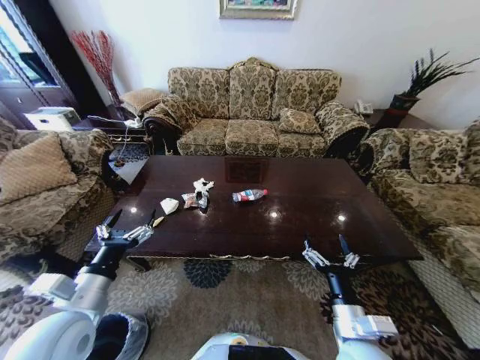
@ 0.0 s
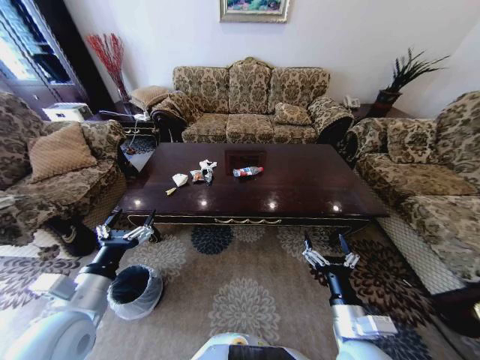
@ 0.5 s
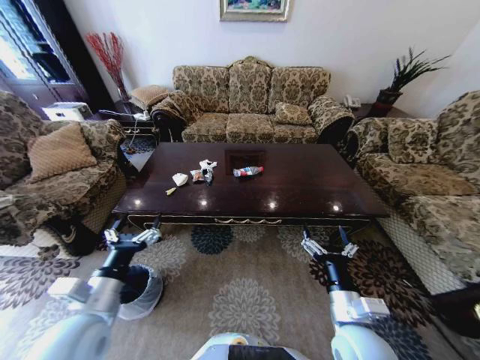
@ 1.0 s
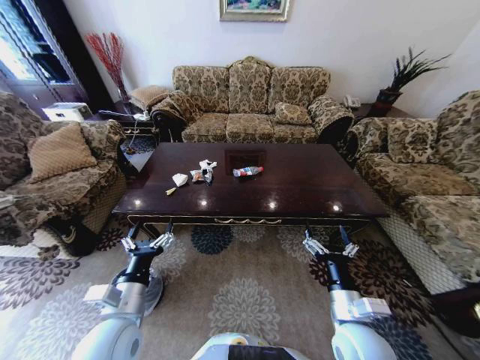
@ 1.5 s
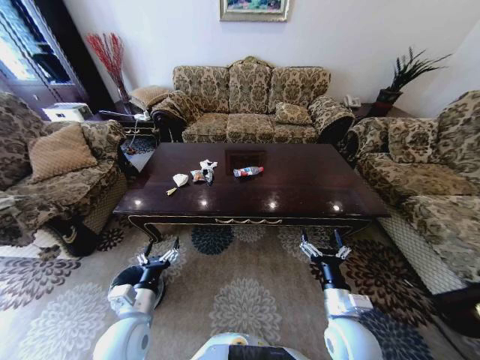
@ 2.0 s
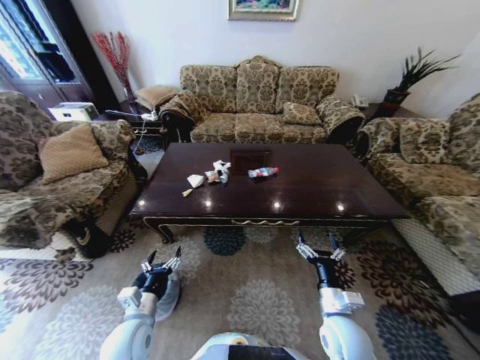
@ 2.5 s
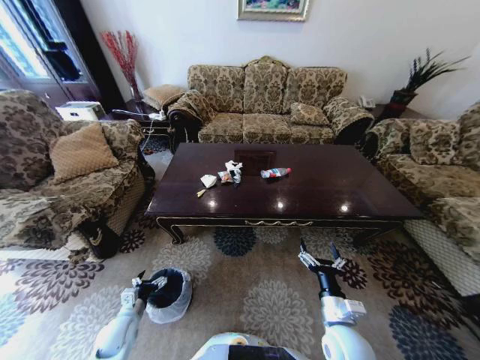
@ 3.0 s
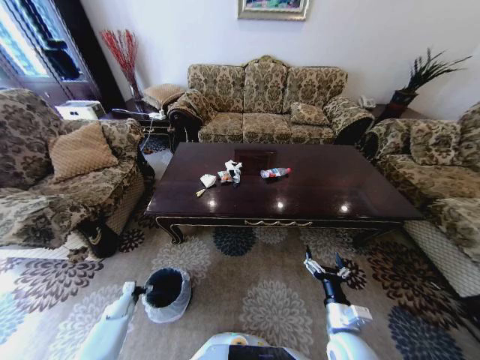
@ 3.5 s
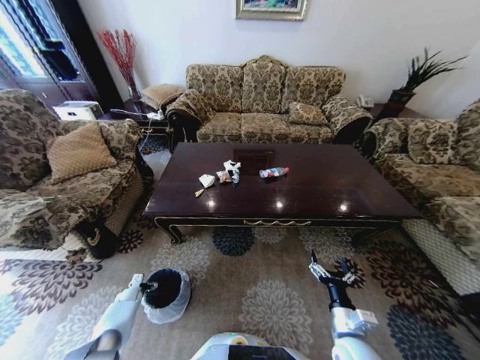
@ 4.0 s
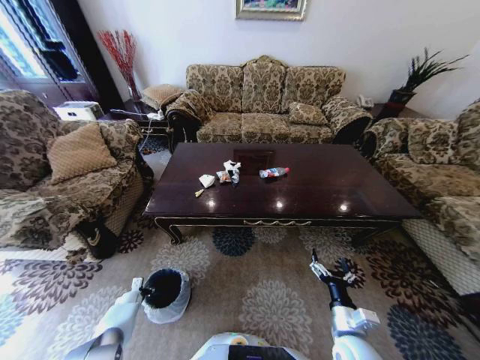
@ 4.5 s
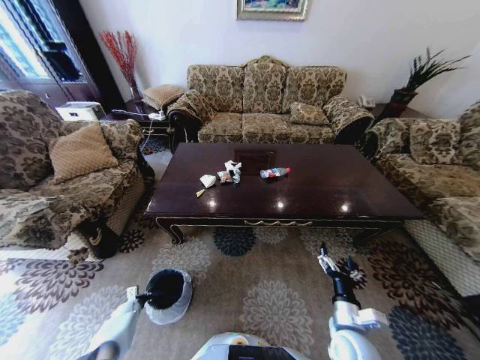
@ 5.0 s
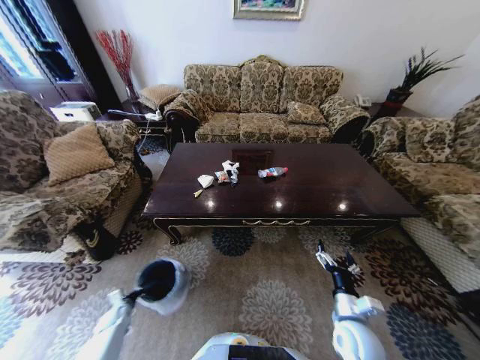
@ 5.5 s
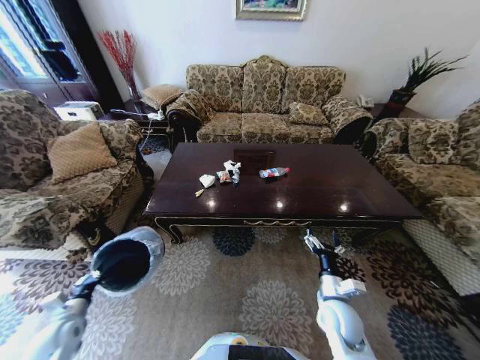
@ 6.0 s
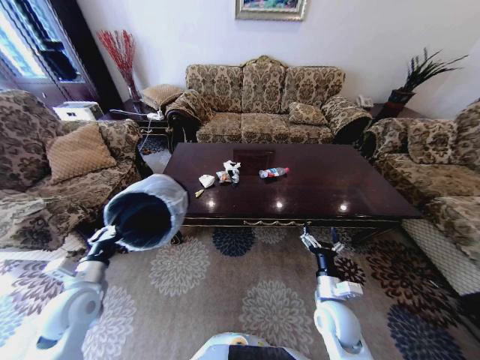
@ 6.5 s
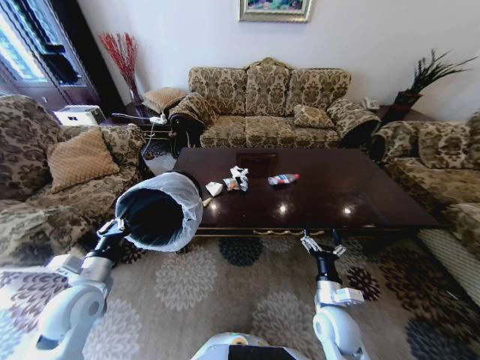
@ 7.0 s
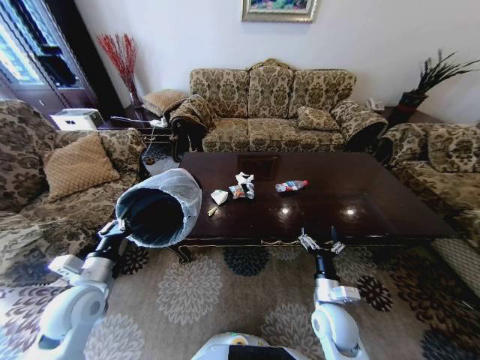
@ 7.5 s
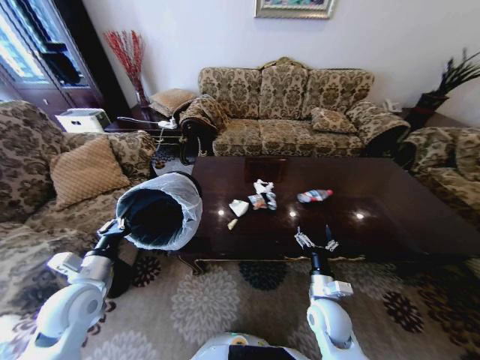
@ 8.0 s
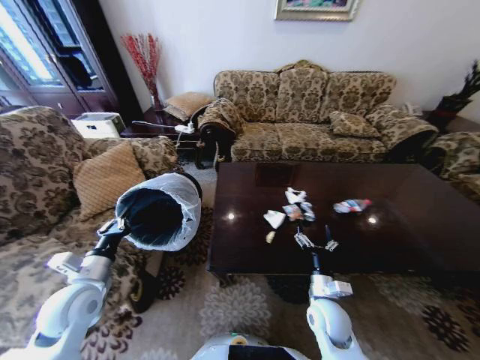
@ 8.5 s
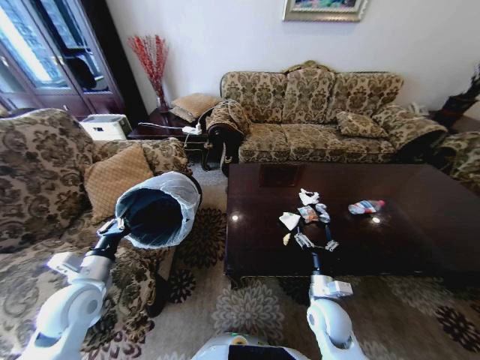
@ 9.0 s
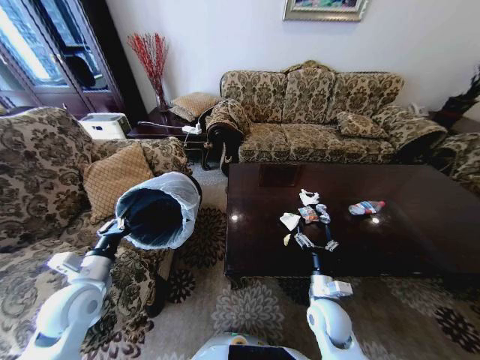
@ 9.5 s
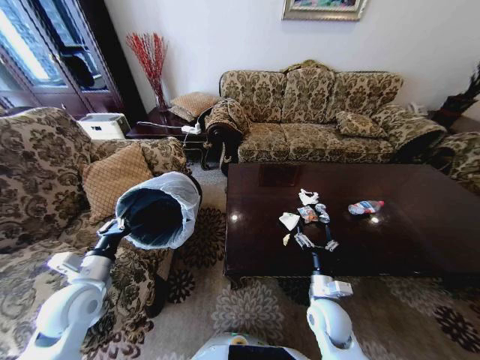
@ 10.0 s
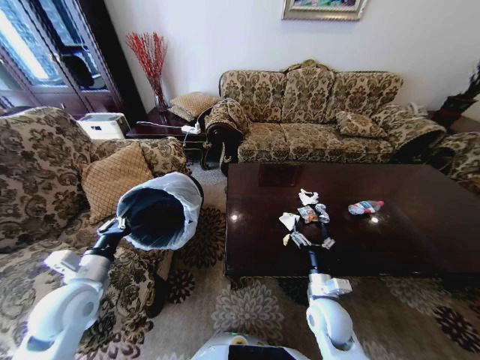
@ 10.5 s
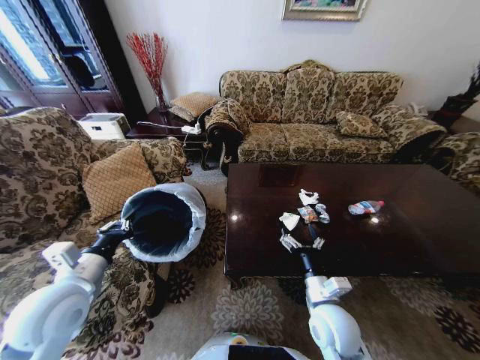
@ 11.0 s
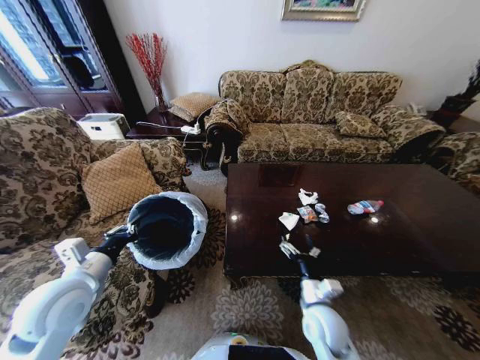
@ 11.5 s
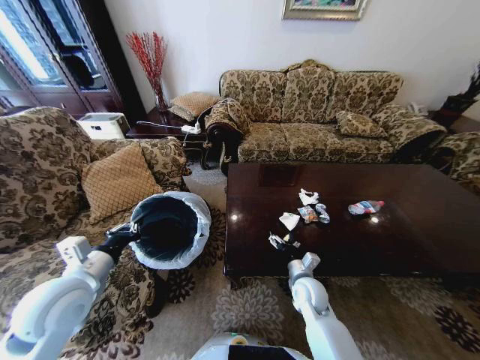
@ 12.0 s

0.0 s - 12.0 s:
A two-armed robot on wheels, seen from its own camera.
Task of the whole recording: Move to the front of the table and place the trash on the table into the trash bin.
2.0 s - 4.0 s: The right gripper is displaced downward by approximately 5 cm, while the left gripper travels downward, to the left and forward by roughly 40 cm.
4.0 s - 6.0 s: The left gripper shifts roughly 25 cm upward and backward, and closes up. The right gripper goes roughly 10 cm forward.
6.0 s - 8.0 s: The left gripper goes about 20 cm upward and to the right.
10.0 s - 12.0 s: The right gripper moves forward, about 5 cm. The left gripper is displaced upward by some 5 cm.

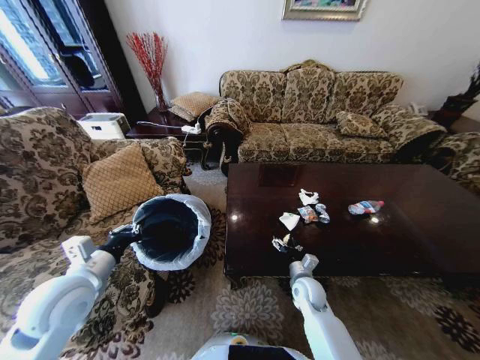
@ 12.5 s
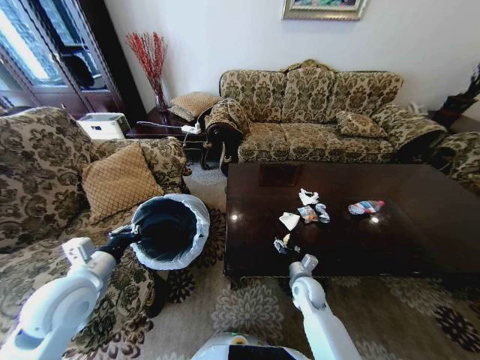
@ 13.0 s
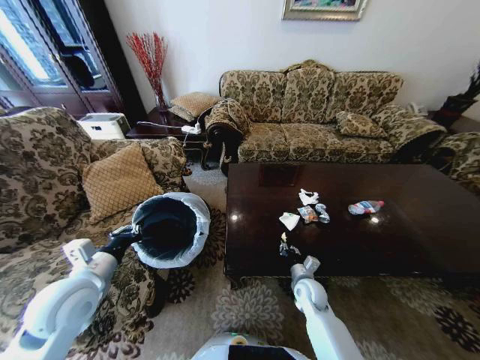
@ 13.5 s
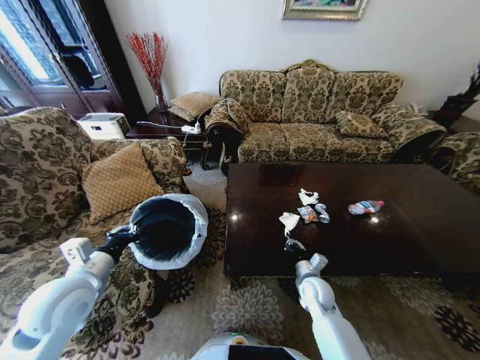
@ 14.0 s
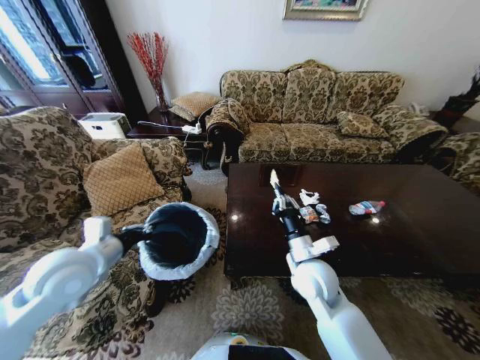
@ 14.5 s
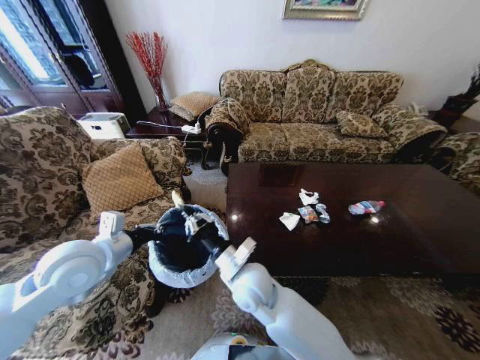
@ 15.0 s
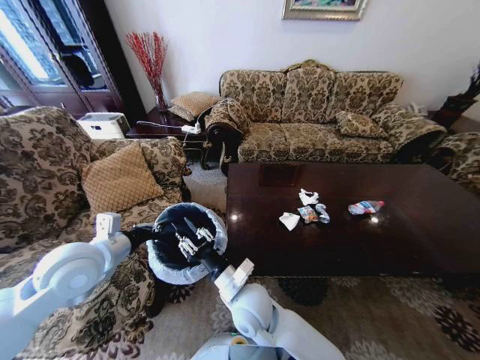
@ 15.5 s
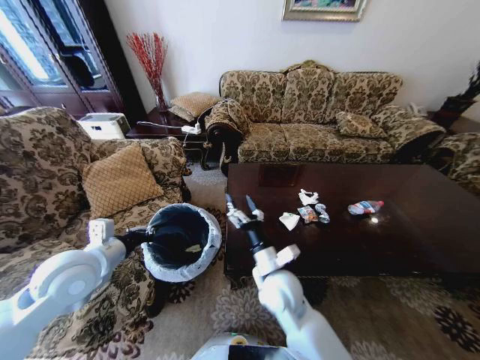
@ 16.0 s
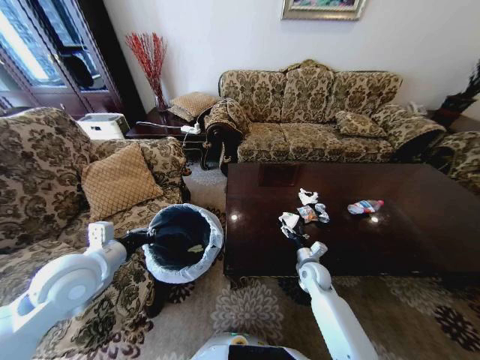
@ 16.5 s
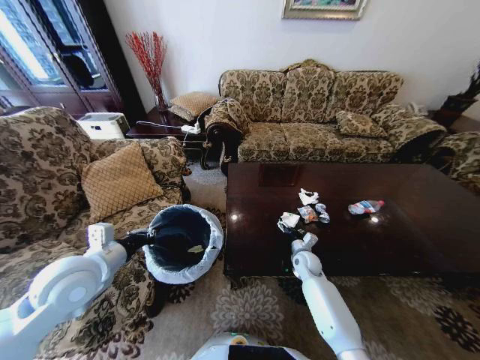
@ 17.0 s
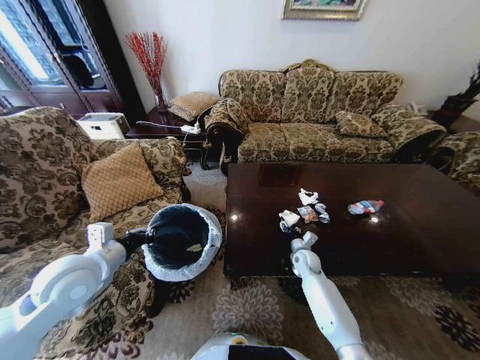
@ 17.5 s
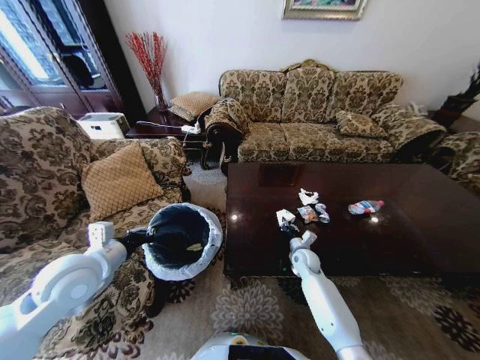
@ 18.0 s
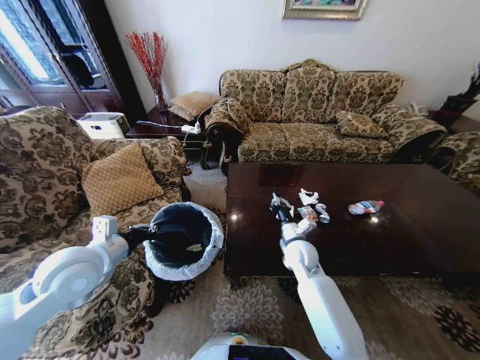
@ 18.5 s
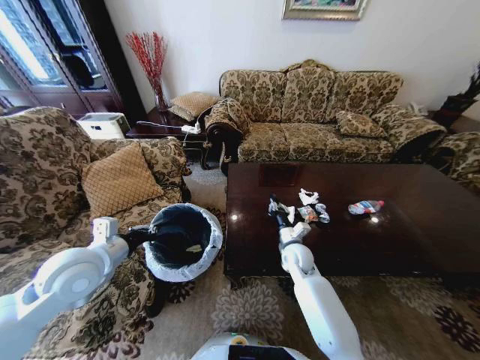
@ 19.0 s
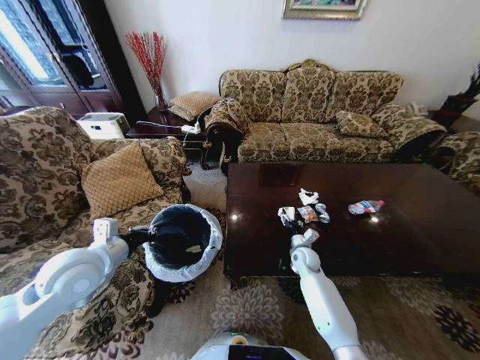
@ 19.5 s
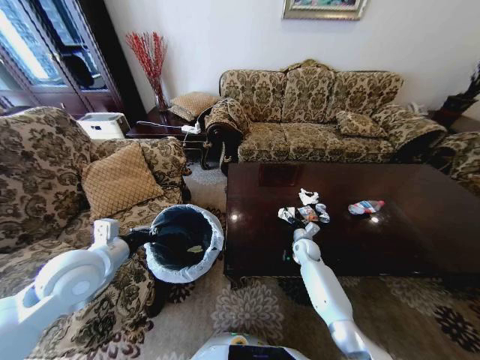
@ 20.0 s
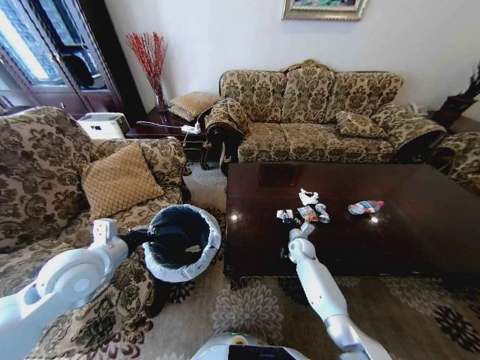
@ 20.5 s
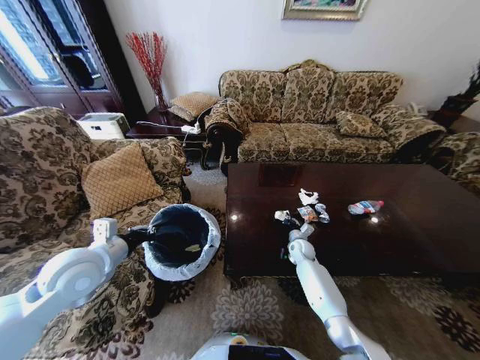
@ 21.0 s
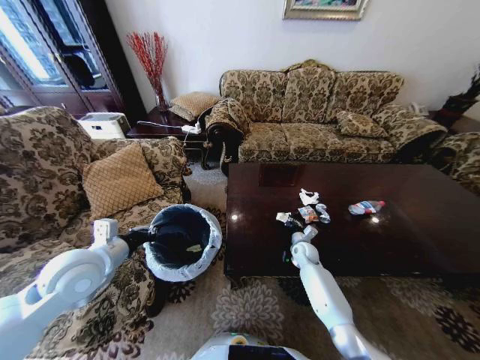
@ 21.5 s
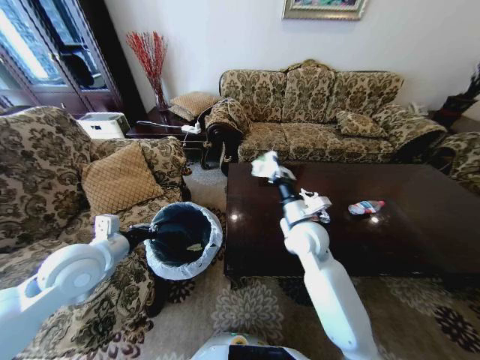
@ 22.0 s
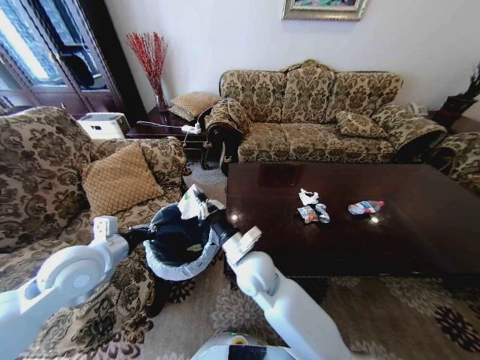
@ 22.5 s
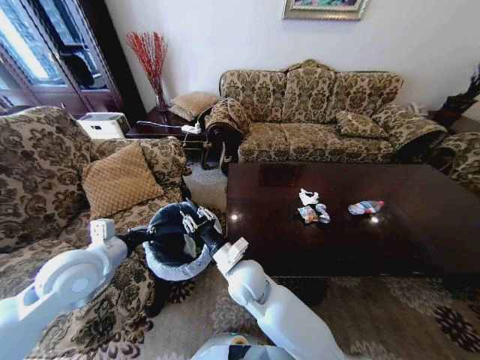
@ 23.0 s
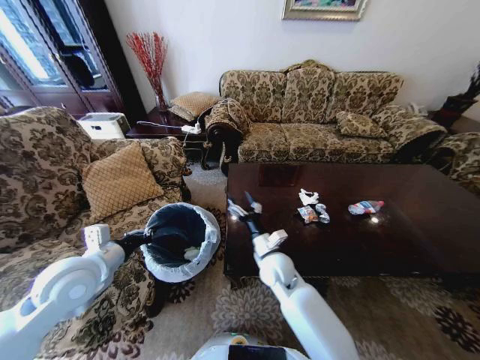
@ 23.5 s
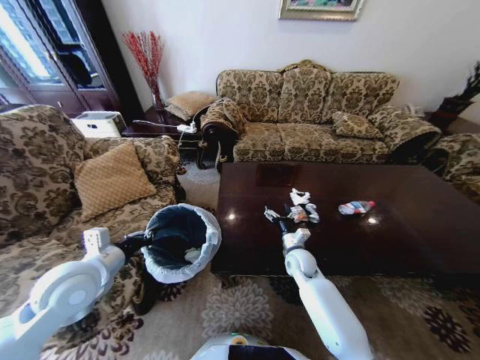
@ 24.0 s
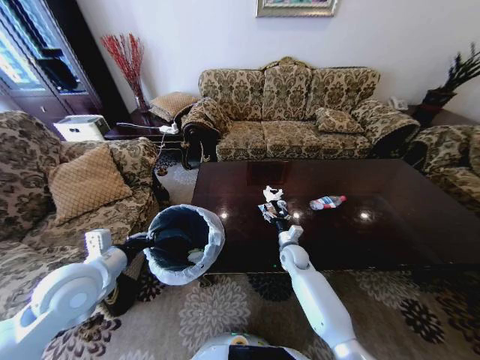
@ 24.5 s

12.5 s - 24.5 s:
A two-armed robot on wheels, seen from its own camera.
Task of the whole recording: Move to the front of the table and place the trash on the table into the trash bin.
12.5 s - 14.5 s: The left gripper changes place by about 5 cm; the right gripper heads upward, covering approximately 15 cm, and closes its fingers.
14.5 s - 16.5 s: The right gripper moves downward and forward, approximately 20 cm, goes to the left and returns, some 15 cm each way, and opens.
16.5 s - 18.5 s: The right gripper goes some 15 cm upward and to the left, and closes its fingers.
18.5 s - 20.5 s: The right gripper travels downward, forward and to the right by some 15 cm, and opens.
20.5 s - 22.5 s: The right gripper moves to the left, upward and backward, about 35 cm, and closes.
22.5 s - 24.5 s: The right gripper moves to the right, downward and forward, some 25 cm, and opens its fingers.

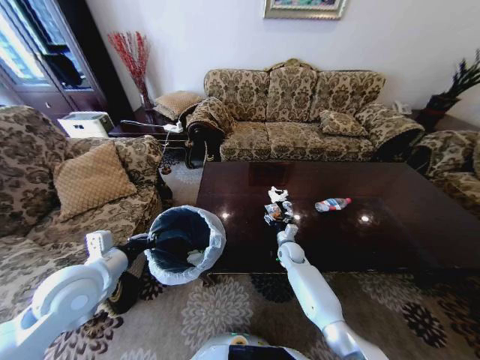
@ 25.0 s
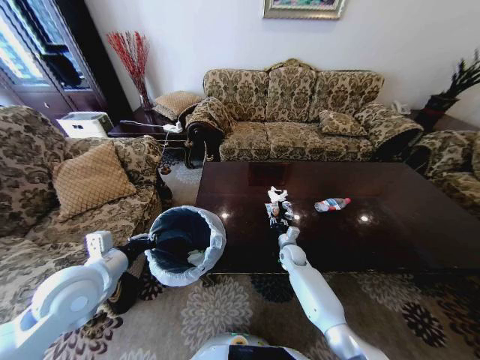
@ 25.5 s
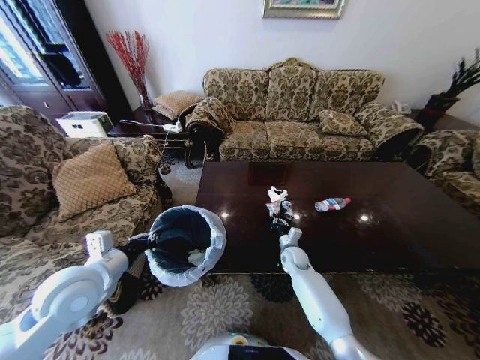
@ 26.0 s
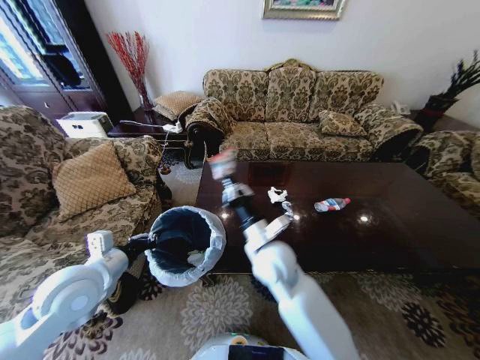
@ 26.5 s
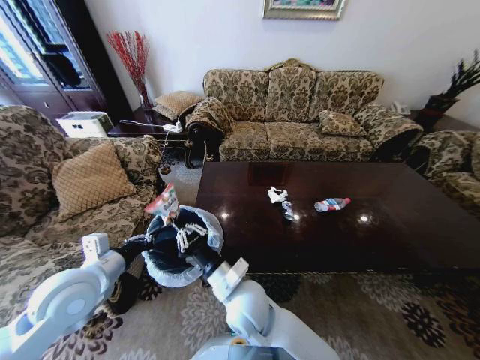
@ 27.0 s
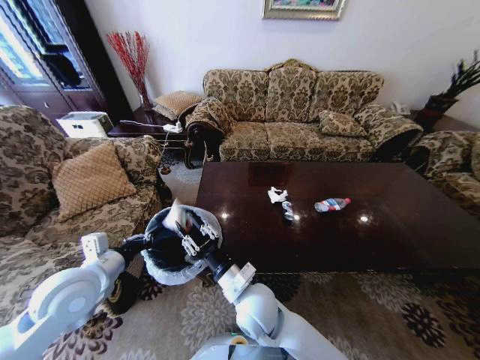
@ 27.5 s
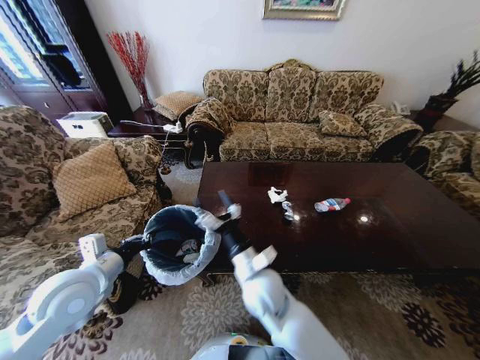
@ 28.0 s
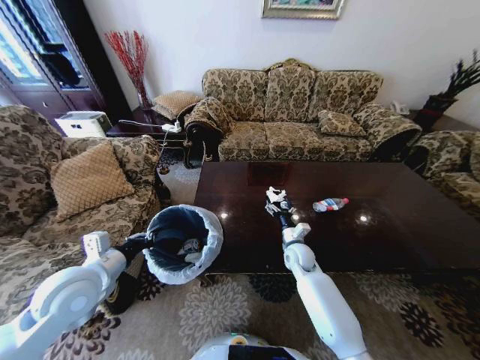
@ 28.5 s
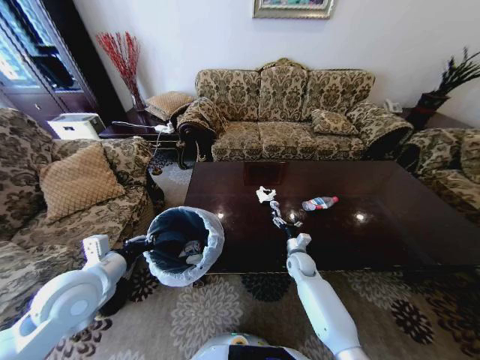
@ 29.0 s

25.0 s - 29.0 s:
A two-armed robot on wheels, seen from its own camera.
Task of the whole recording: Move to the front of the table and place the trash on the table into the trash bin.
25.0 s - 27.0 s: The right gripper travels backward, to the left and upward by some 35 cm, and closes its fingers.
27.0 s - 29.0 s: The right gripper shifts some 35 cm to the right, downward and forward, and opens its fingers.
